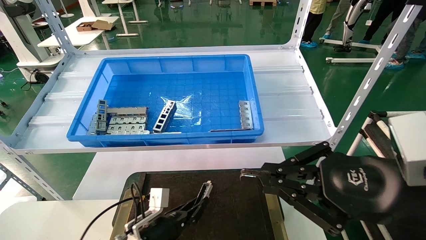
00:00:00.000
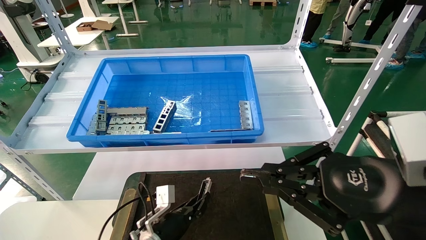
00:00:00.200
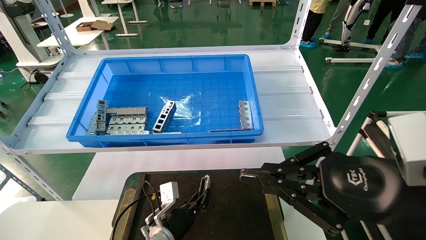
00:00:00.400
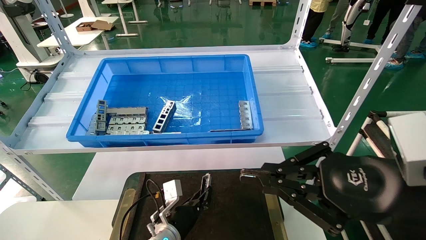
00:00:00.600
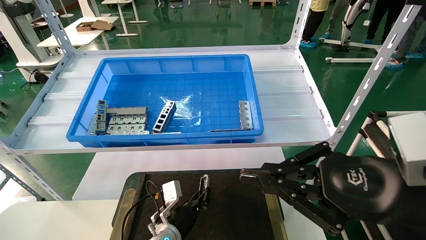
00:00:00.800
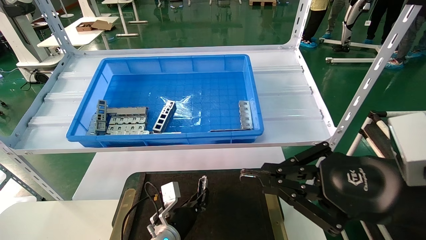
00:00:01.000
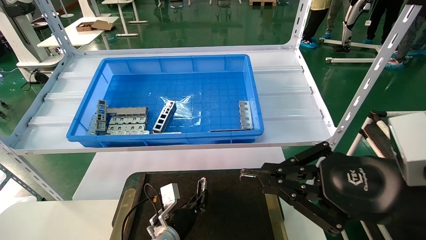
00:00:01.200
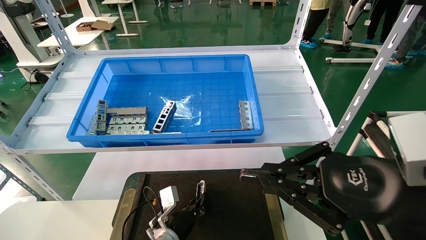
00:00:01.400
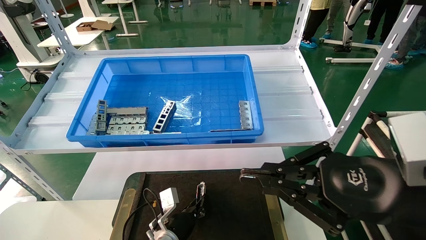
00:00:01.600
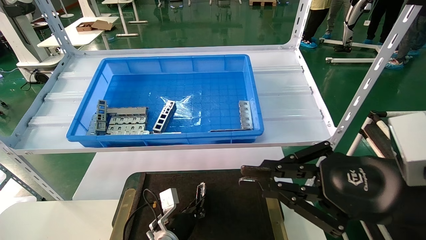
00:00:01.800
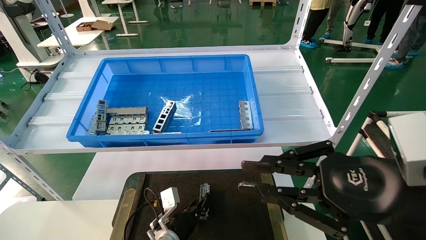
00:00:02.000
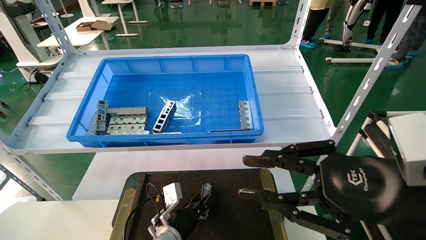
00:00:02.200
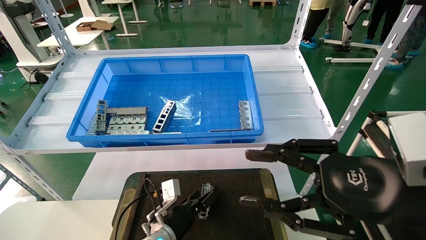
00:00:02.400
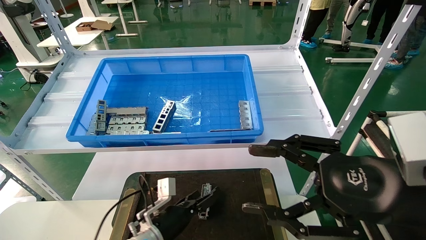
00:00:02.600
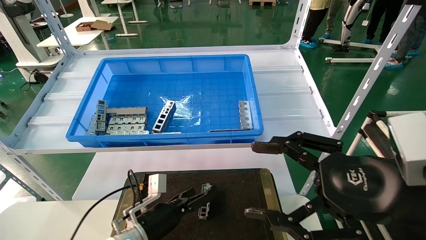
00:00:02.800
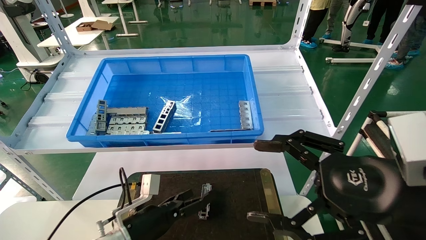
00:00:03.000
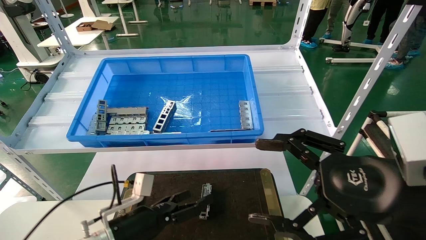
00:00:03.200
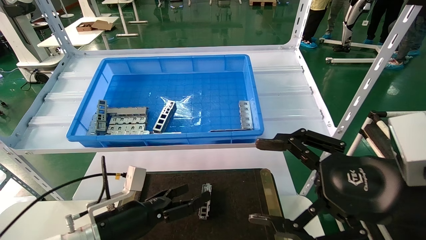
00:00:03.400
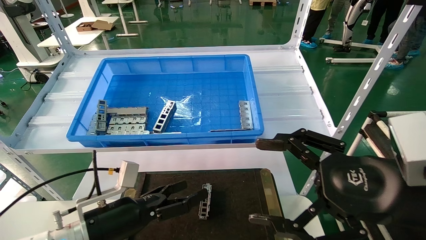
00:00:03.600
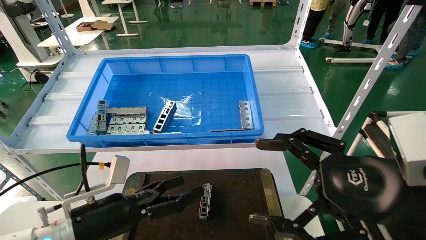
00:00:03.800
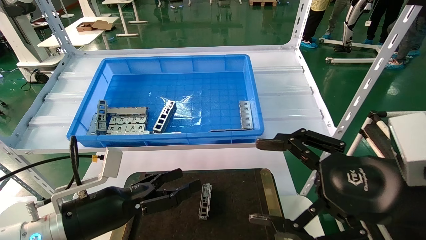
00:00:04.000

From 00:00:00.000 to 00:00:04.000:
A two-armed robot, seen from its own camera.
Task of the whole recording: Grasp the part with one hand and place it on the black container.
Step, from 00:00:00.000 to 00:00:02.200: Place the front USB bracket into the box.
From 00:00:00.000 to 00:00:01.400: The left gripper shifts by roughly 10 cm.
From 00:00:01.400 to 00:00:02.600: The right gripper opens its fingers. The left gripper shifts by approximately 5 cm, and opens.
From 00:00:02.600 to 00:00:04.000: The right gripper opens up, while the left gripper travels upward, backward and to the left by some 20 cm, and opens up.
